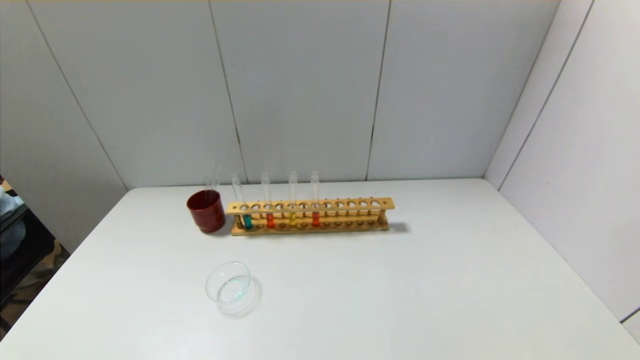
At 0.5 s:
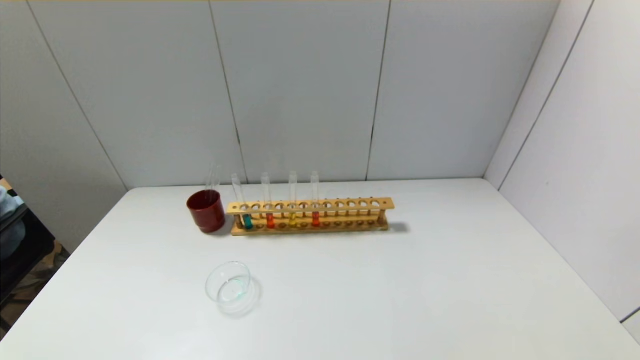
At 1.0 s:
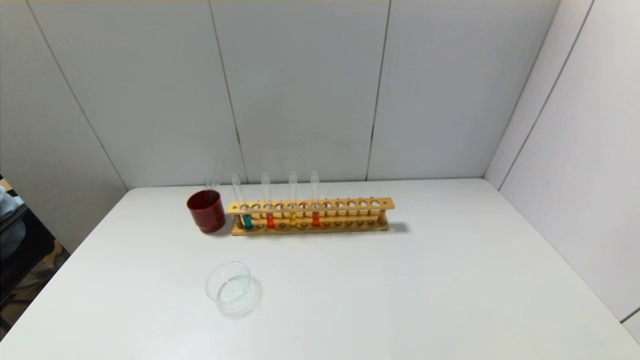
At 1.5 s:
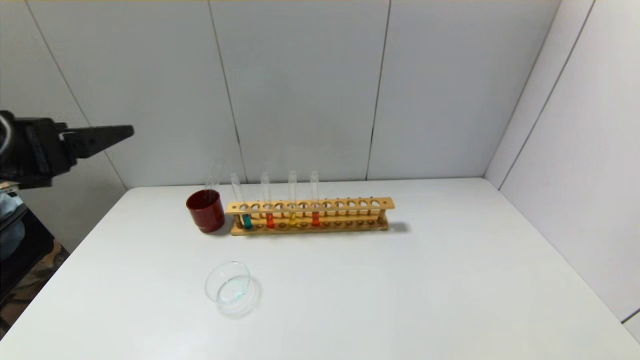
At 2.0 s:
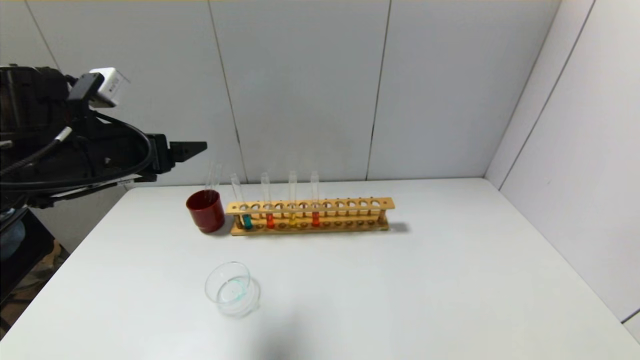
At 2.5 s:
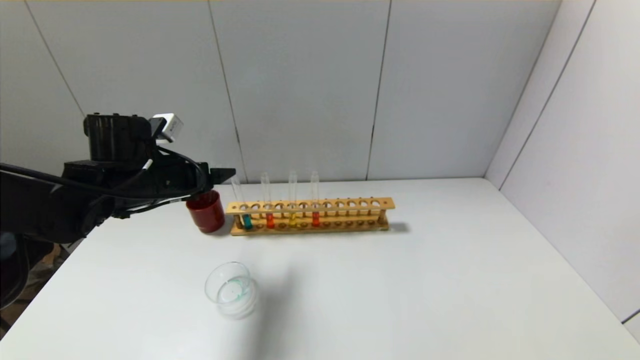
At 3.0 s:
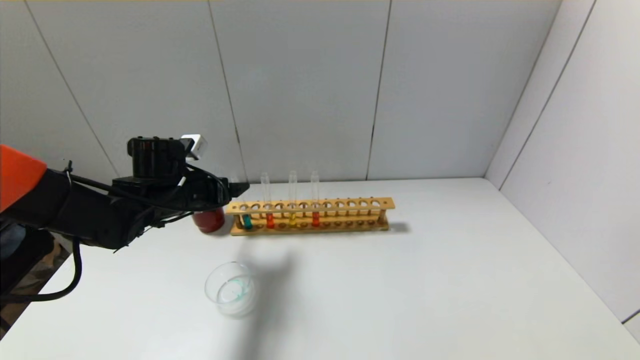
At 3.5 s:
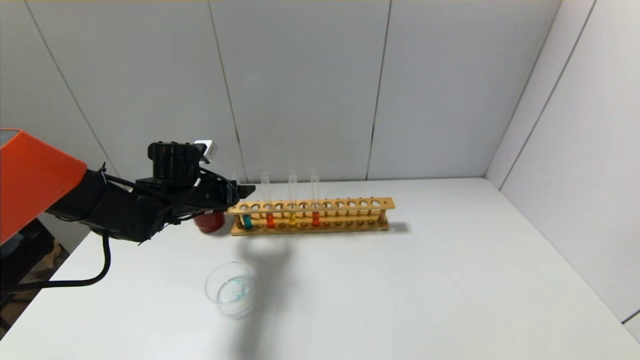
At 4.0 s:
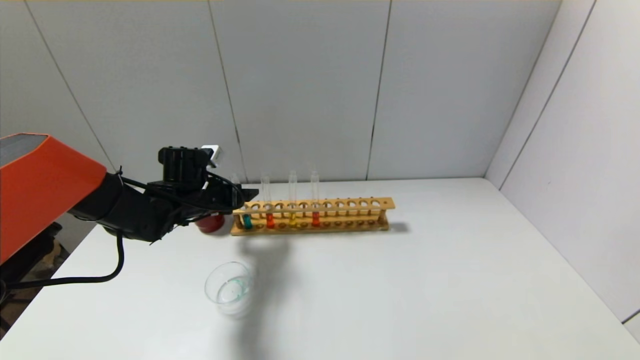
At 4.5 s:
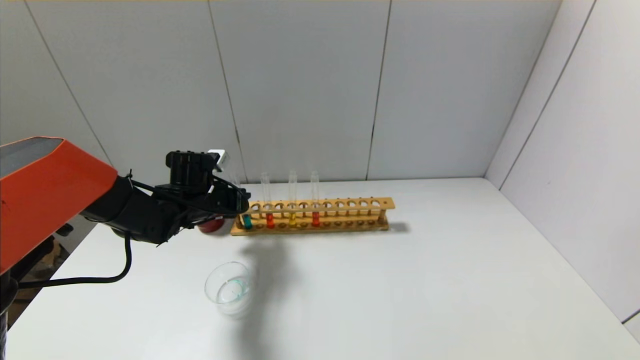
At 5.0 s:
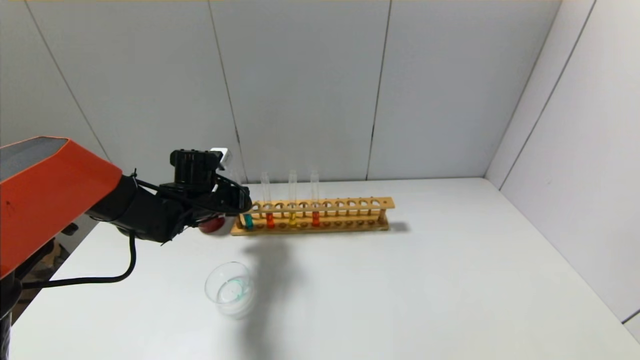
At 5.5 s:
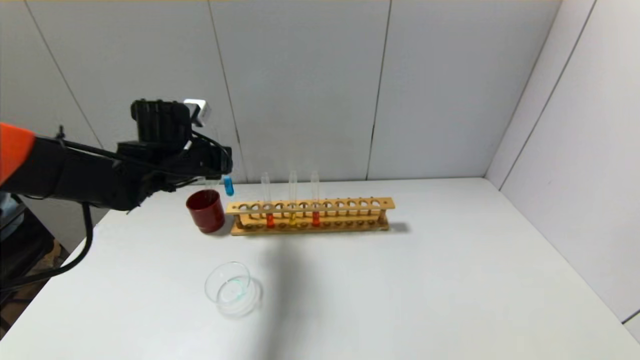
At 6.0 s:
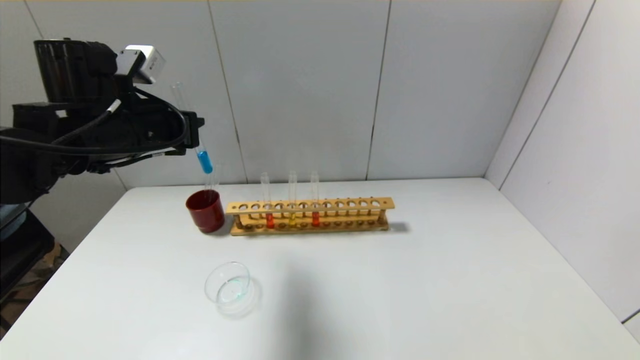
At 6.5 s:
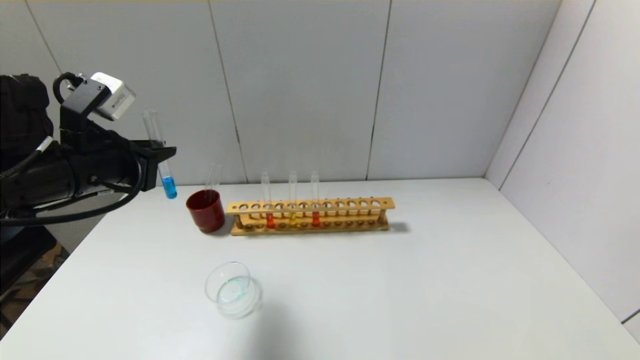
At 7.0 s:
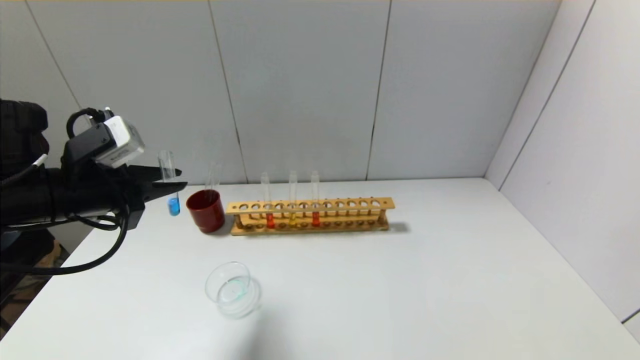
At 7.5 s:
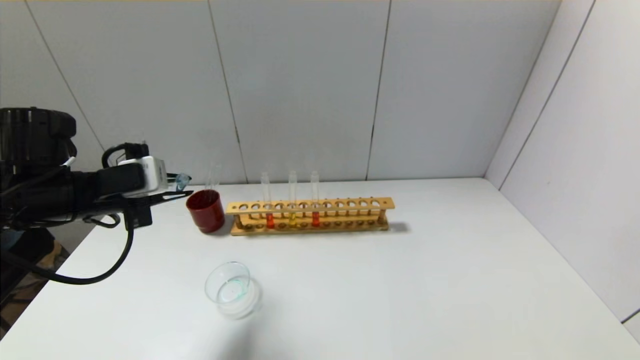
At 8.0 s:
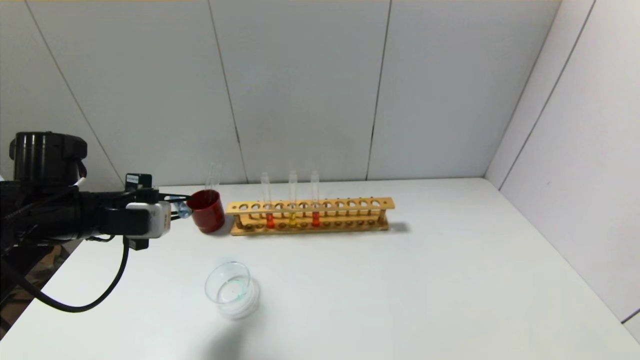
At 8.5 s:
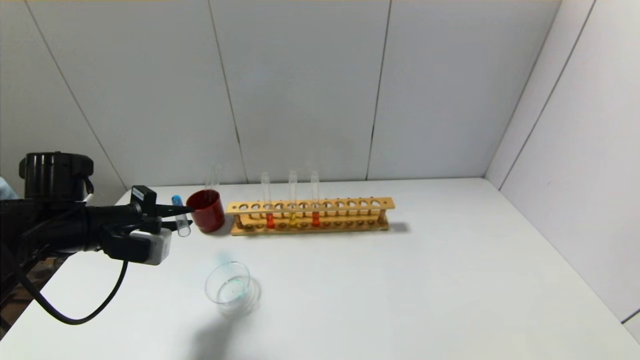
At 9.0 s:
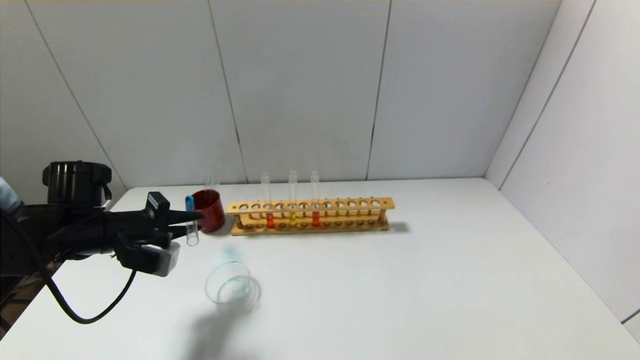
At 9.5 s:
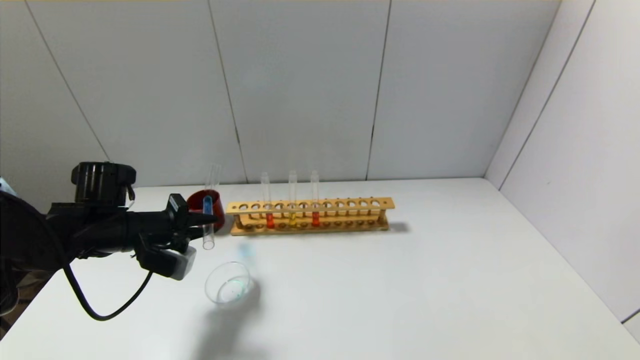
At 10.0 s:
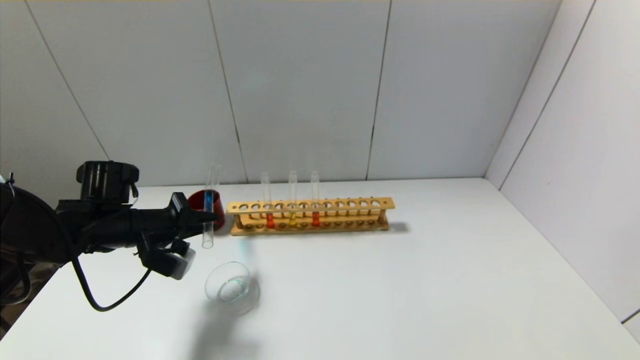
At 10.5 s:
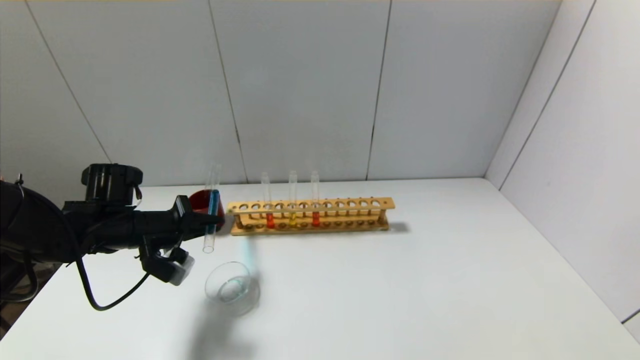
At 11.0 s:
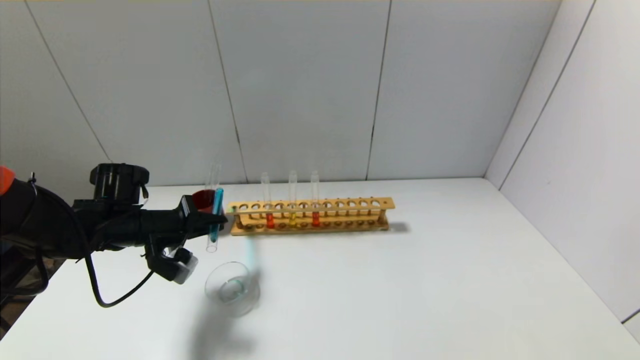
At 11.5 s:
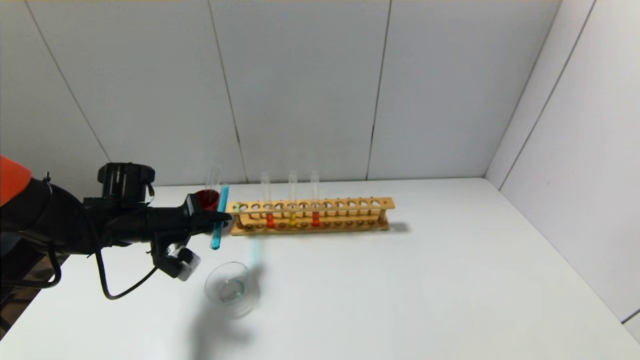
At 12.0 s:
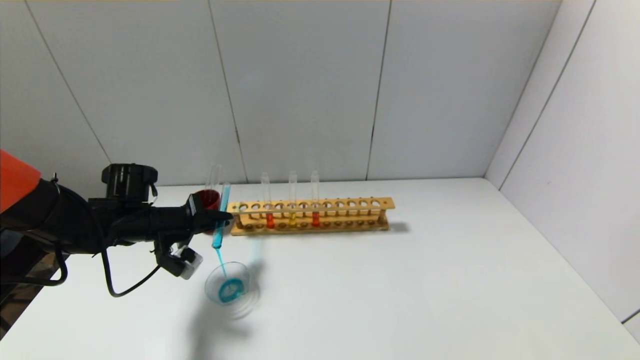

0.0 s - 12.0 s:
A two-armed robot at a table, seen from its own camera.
Step, 0.0 s - 4.5 s: Grasp the blue reagent with the left gripper.
0.0 s - 2.0 s: The left gripper shifts roughly 35 cm forward and upward.
2.0 s - 4.0 s: The left gripper is displaced downward and forward by roughly 20 cm.
4.0 s - 6.0 s: The left gripper moves upward and backward, about 20 cm, and closes up.
6.0 s - 8.0 s: The left gripper shifts some 10 cm downward and to the left.
8.0 s - 10.0 s: The left gripper goes about 5 cm downward.
10.0 s - 12.0 s: The grippers stay close to where they were, moving slightly.

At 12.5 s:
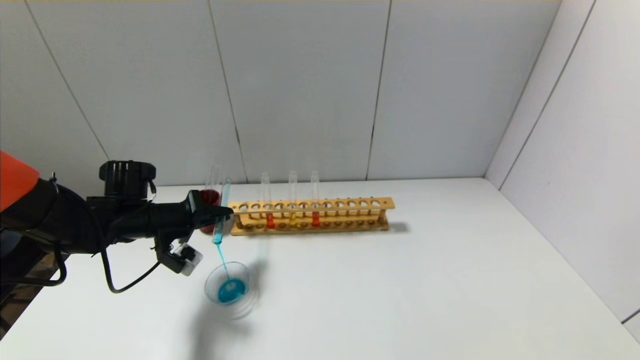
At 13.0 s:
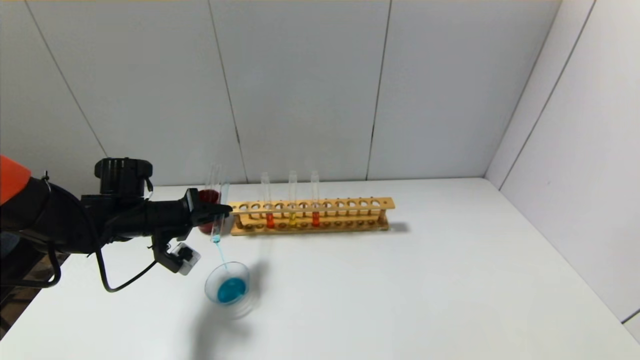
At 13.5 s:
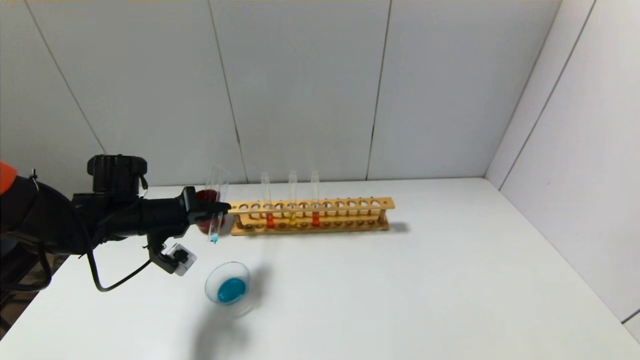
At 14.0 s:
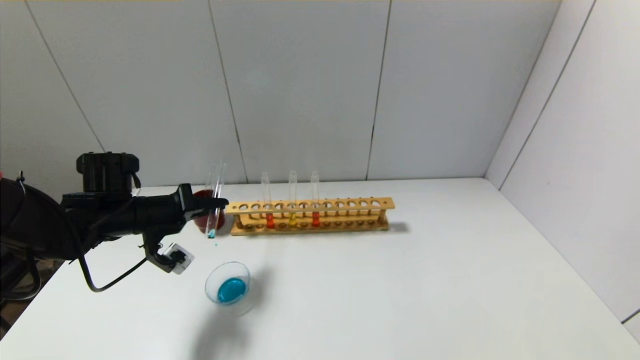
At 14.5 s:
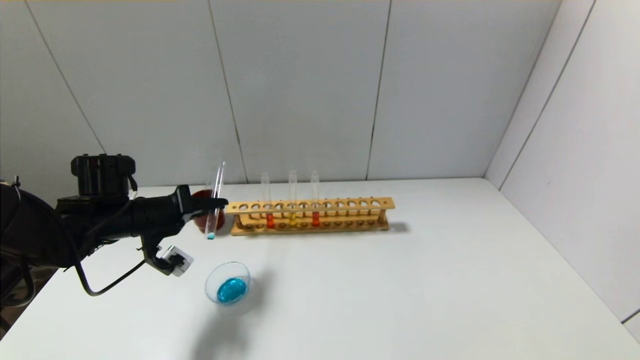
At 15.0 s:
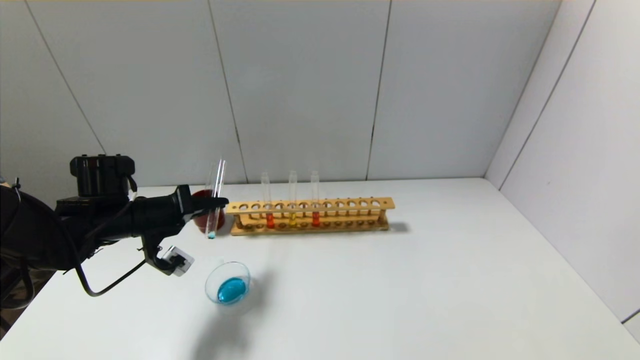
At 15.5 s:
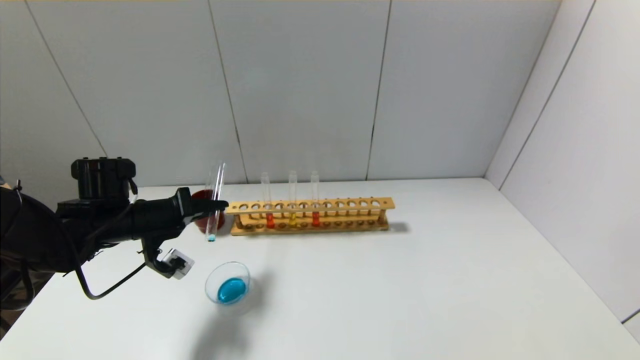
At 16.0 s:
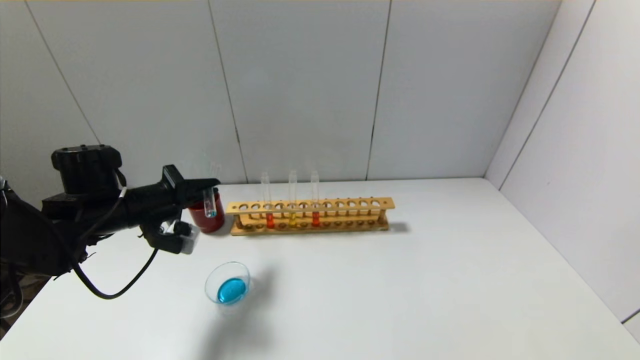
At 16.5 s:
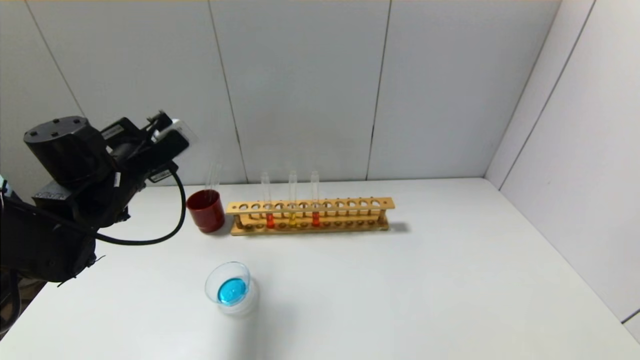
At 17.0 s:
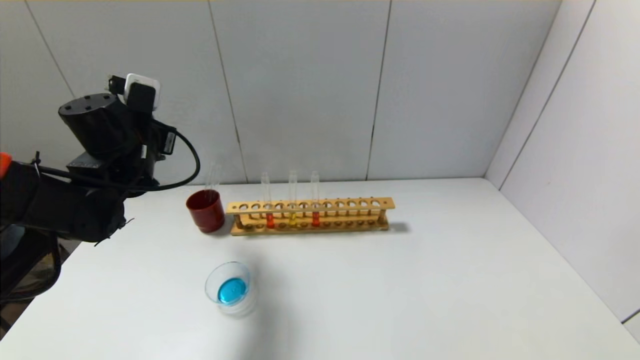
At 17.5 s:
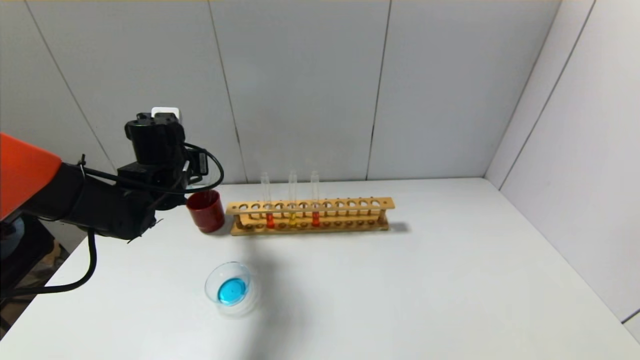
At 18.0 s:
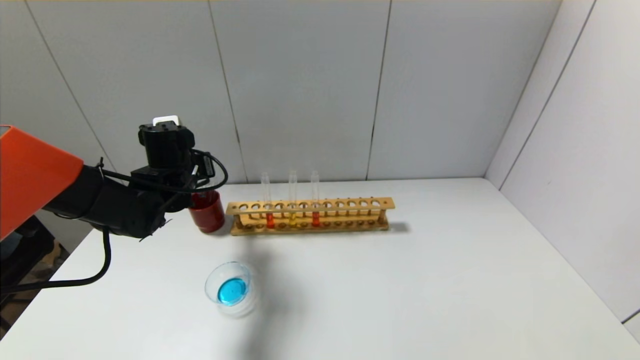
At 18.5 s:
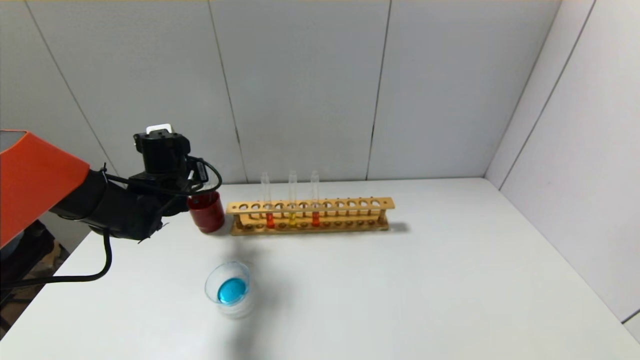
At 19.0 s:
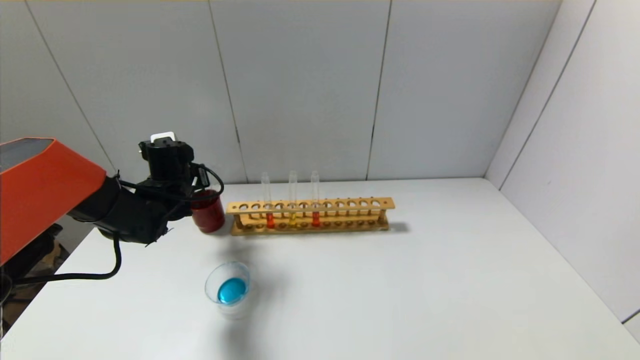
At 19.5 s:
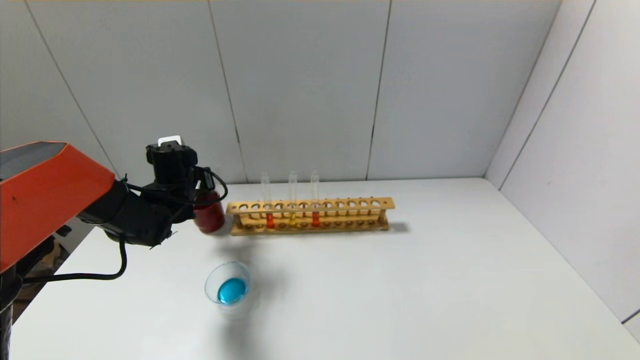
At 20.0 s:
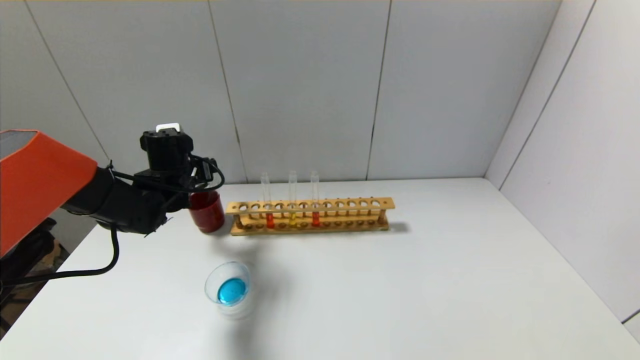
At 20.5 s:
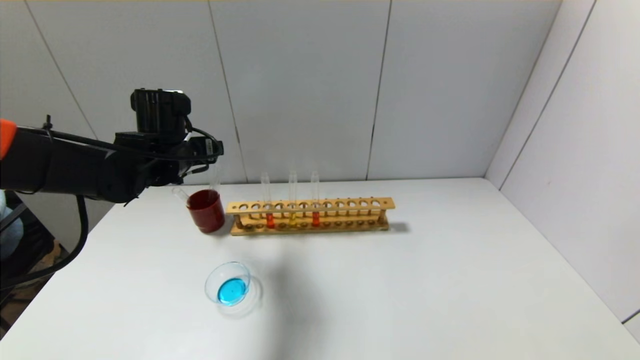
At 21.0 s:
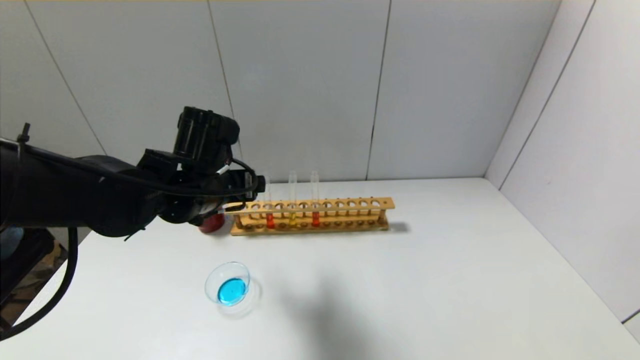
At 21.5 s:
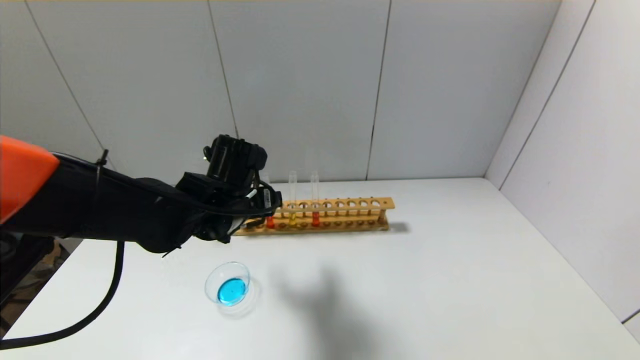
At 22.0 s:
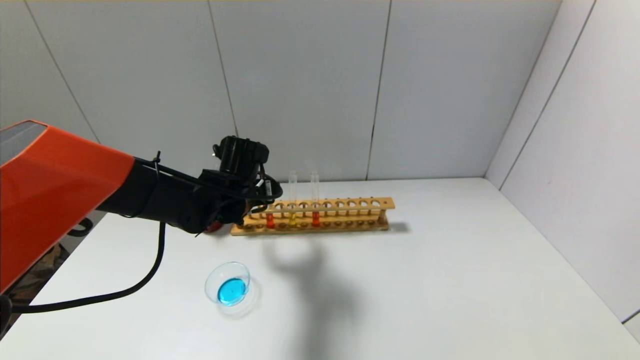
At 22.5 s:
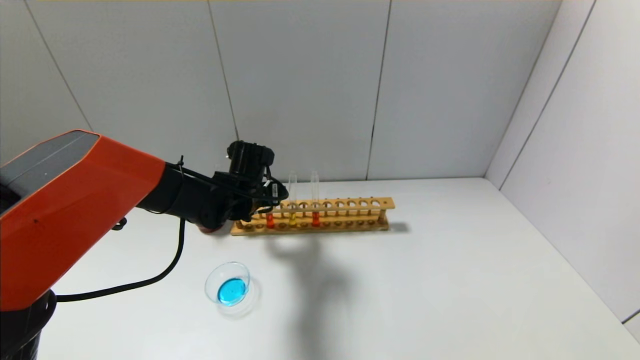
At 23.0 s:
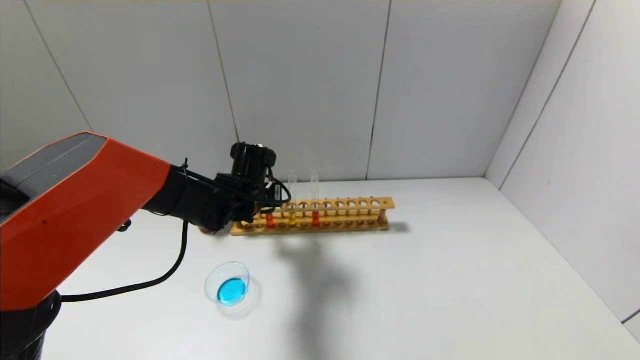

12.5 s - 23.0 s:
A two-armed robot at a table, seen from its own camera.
Step, 12.5 s - 16.0 s: Pour the blue reagent into the graduated cylinder with the left gripper.
Step, 16.5 s - 19.0 s: Place the test tube into the brown cup with the left gripper.
12.5 s - 14.5 s: There are only small adjustments of the grippers.
14.5 s - 16.5 s: The left gripper shifts roughly 5 cm upward.
16.5 s - 19.0 s: The left gripper travels forward and downward by some 10 cm.
19.0 s - 21.0 s: The left gripper heads backward, to the right and upward, covering about 15 cm, and opens up.
21.0 s - 23.0 s: The left gripper goes roughly 15 cm forward and downward, and closes up.
